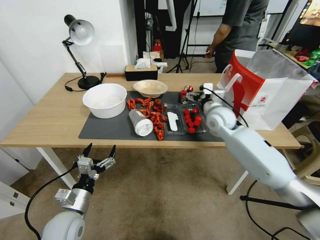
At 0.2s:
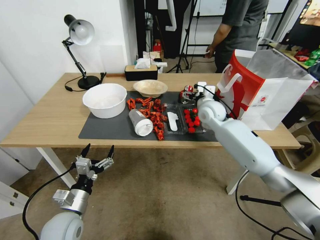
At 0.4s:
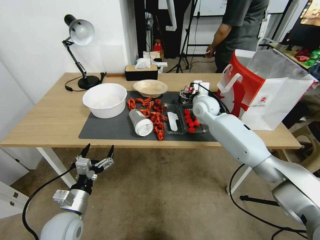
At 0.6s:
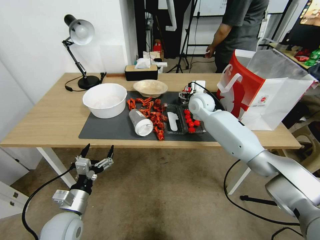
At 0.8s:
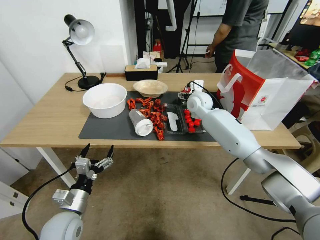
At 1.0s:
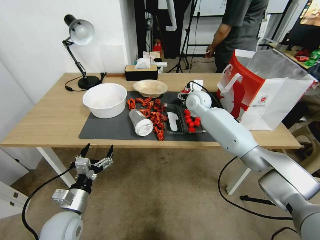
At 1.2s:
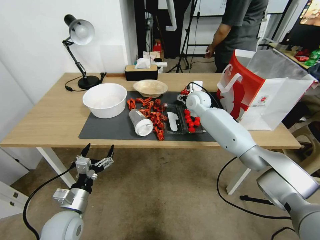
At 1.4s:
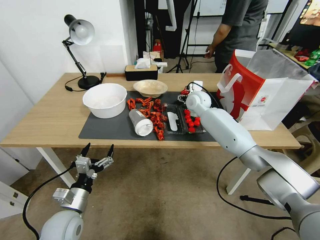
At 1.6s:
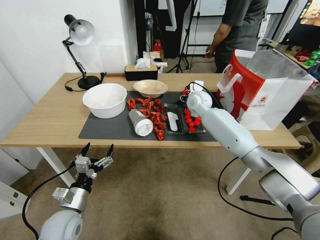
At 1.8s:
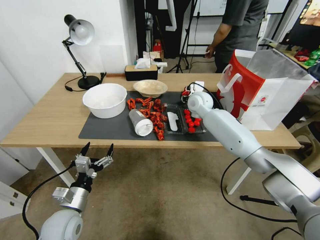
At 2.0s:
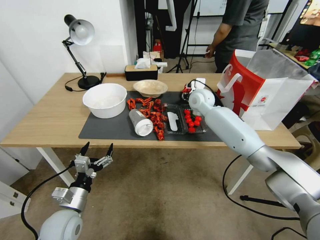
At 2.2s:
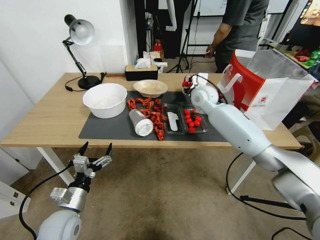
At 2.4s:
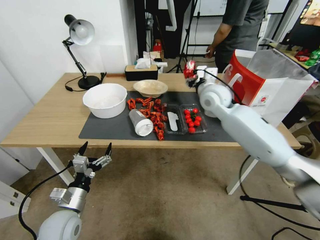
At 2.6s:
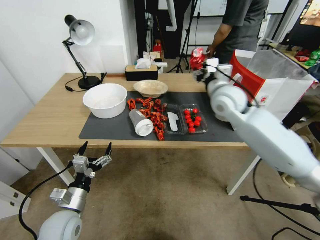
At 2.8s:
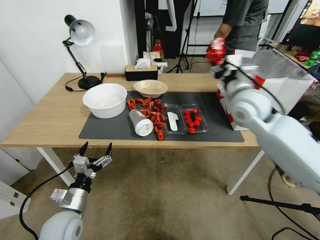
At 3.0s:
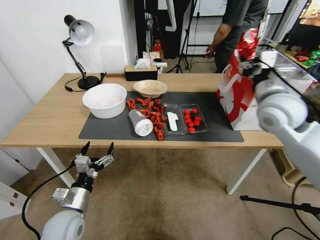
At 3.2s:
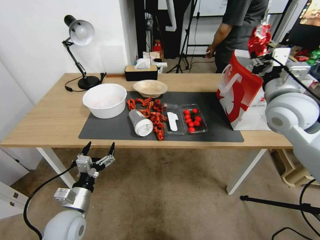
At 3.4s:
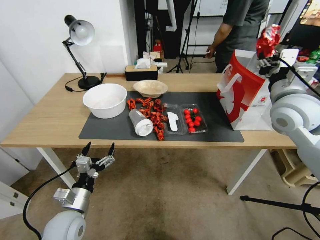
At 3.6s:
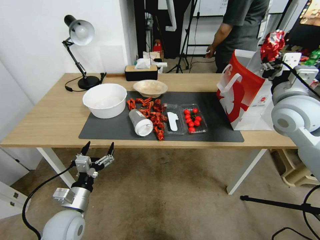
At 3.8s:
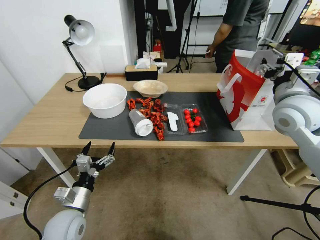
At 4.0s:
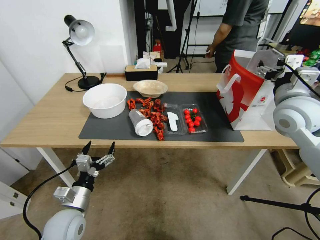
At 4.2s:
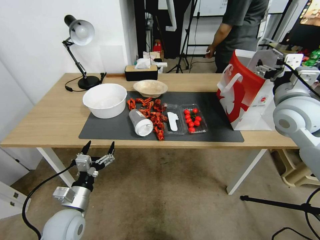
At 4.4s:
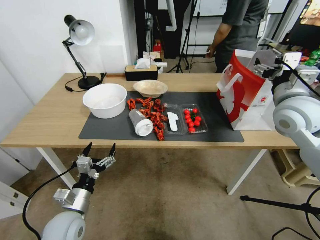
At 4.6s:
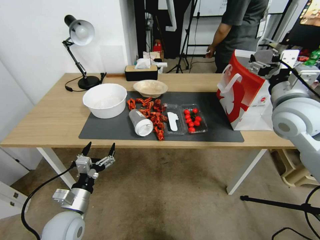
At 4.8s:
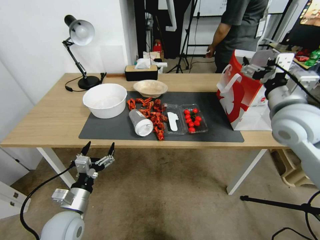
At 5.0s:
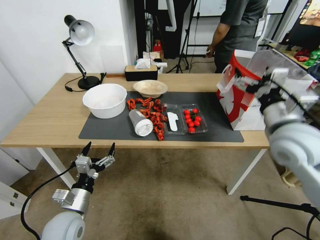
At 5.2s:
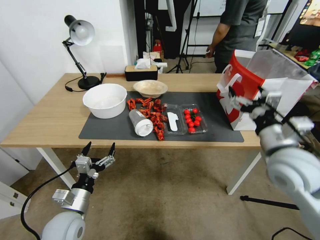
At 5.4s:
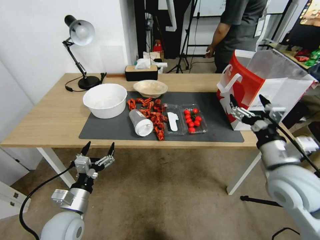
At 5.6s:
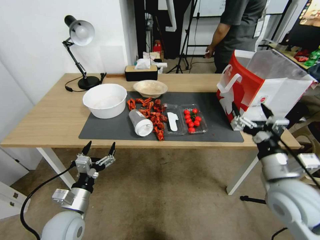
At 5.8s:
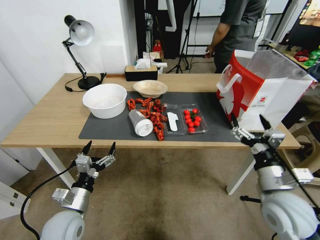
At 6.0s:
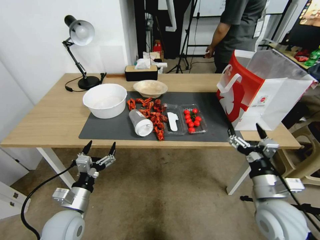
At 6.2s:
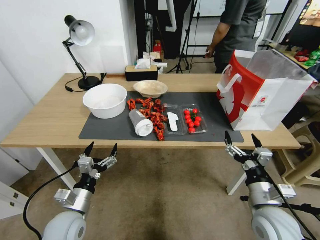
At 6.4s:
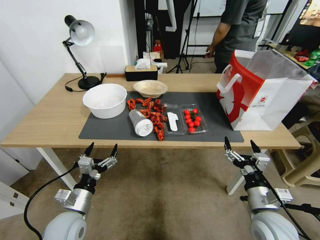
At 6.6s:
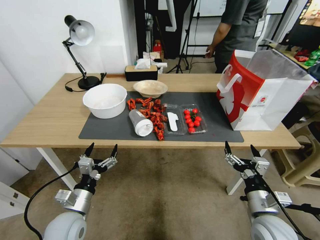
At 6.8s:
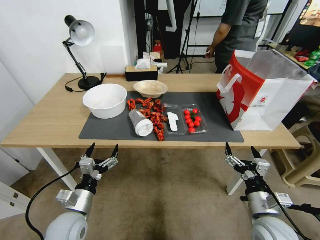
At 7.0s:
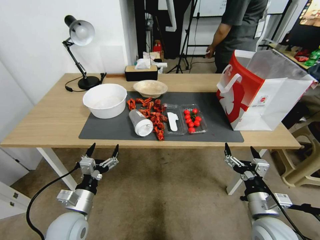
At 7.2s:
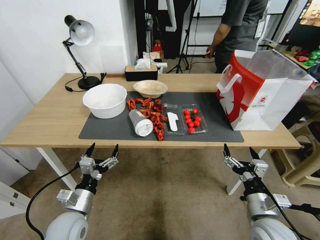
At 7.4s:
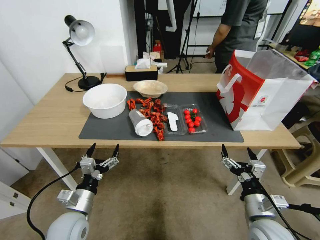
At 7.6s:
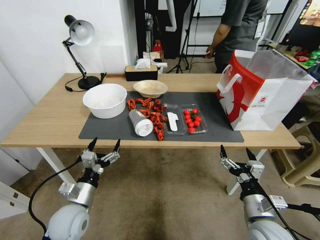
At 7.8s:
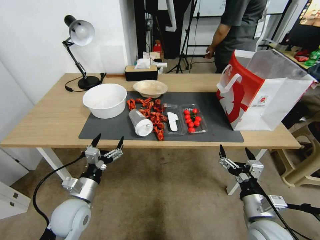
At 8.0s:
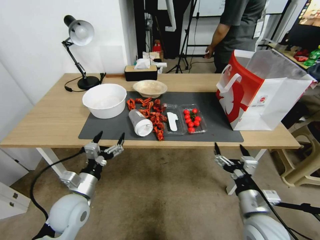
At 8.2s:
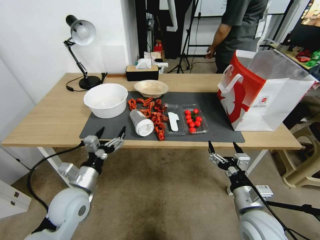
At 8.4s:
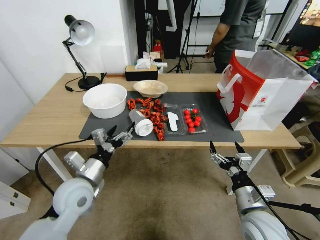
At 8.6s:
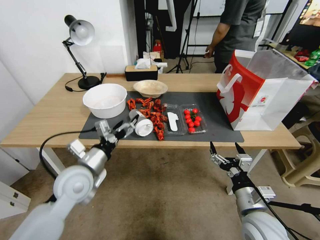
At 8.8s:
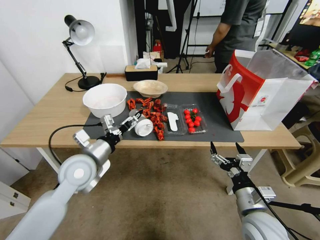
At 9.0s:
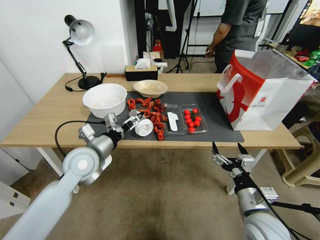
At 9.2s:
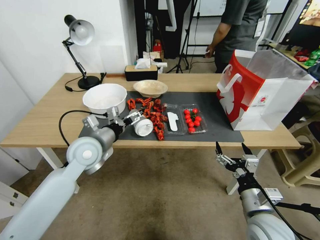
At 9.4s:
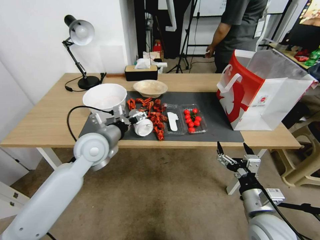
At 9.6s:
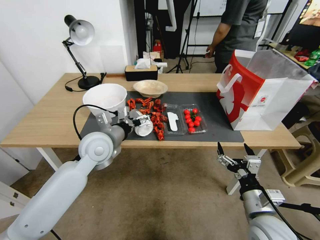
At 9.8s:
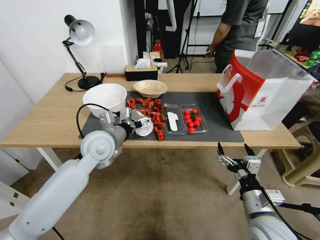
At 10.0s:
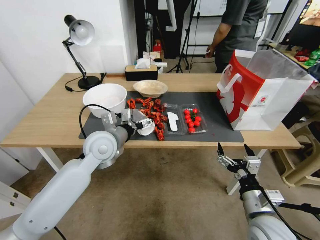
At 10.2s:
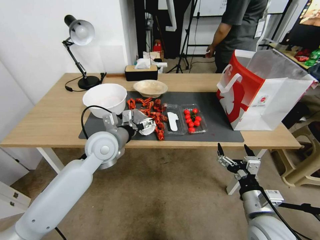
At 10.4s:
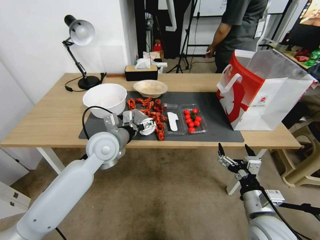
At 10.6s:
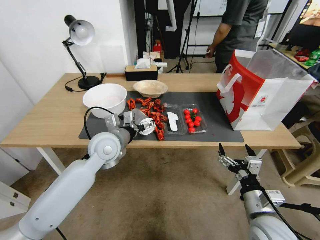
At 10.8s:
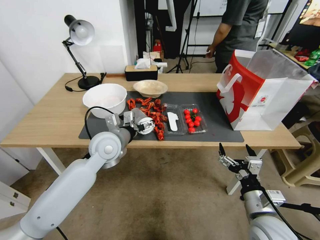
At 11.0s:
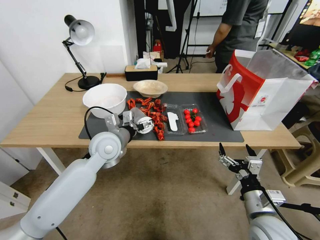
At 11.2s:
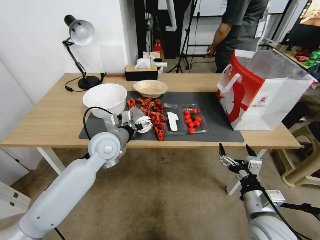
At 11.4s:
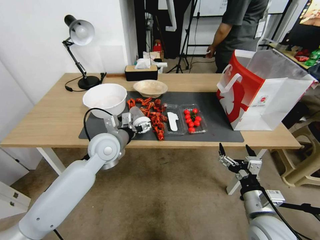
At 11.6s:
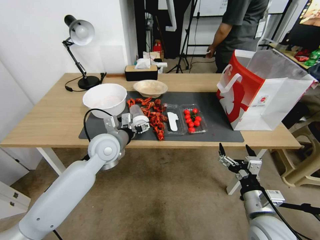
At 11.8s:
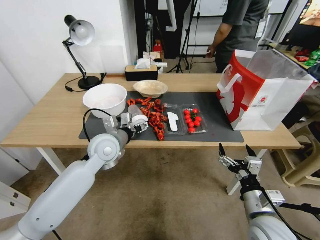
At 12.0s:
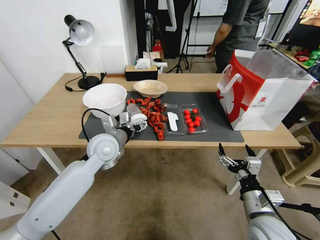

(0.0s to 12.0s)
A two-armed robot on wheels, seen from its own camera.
0.0s - 1.6s: The right gripper travels forward and to the left by about 10 cm.
1.6s - 3.0s: The right gripper heads backward, to the right and upward, covering about 25 cm.
3.0s - 4.4s: The right gripper ends up about 5 cm from where it was, and opens its fingers.
4.4s - 6.0s: The right gripper is displaced downward and backward by roughly 25 cm.
6.0s - 7.6s: The right gripper moves downward, approximately 5 cm.
7.6s - 9.0s: The left gripper is displaced upward and forward by some 20 cm.
9.0s - 10.4s: The left gripper heads to the right, covering approximately 5 cm.
10.4s - 12.0s: The grippers stay close to where they were, moving slightly.

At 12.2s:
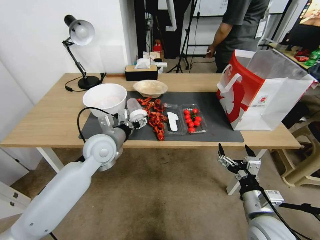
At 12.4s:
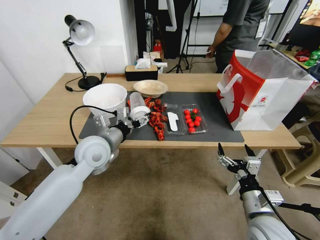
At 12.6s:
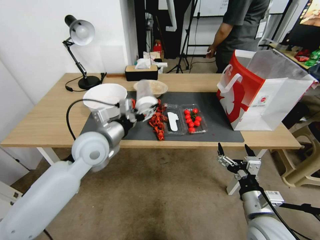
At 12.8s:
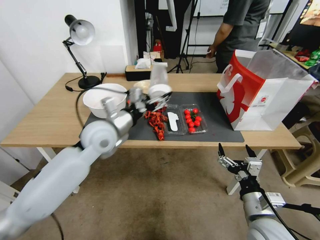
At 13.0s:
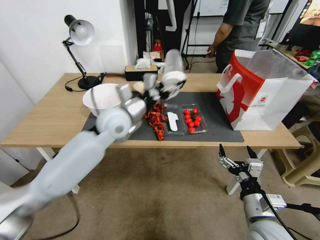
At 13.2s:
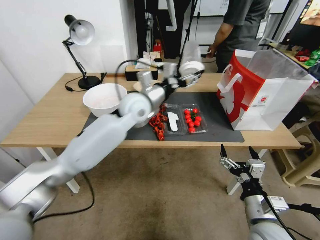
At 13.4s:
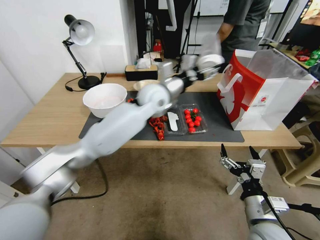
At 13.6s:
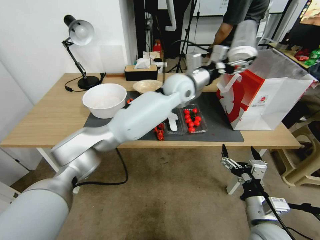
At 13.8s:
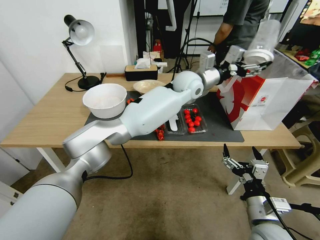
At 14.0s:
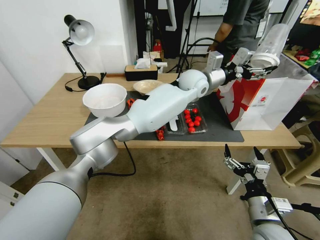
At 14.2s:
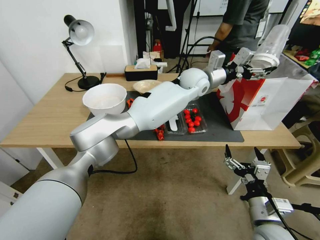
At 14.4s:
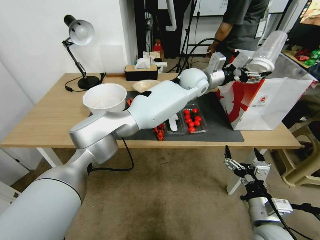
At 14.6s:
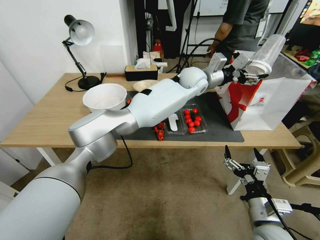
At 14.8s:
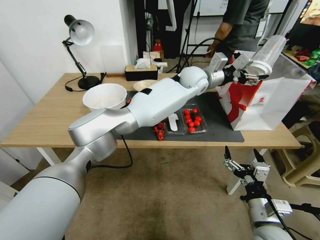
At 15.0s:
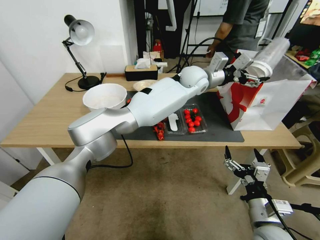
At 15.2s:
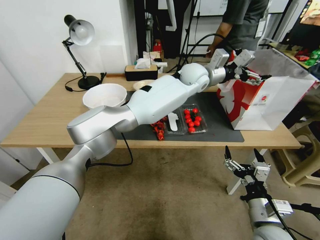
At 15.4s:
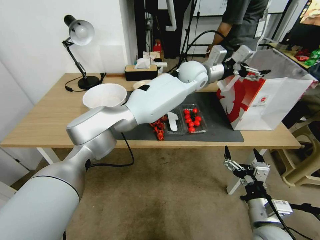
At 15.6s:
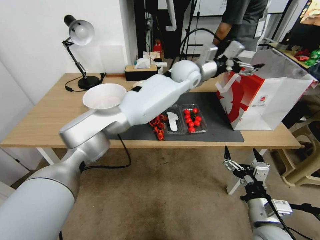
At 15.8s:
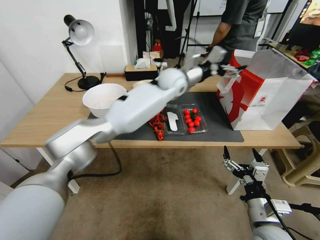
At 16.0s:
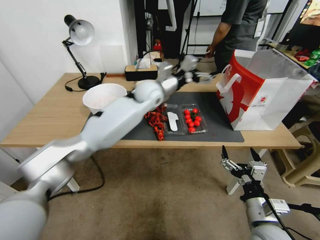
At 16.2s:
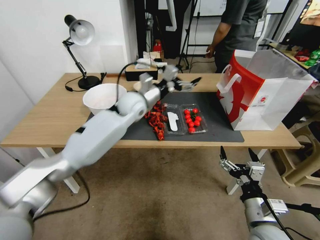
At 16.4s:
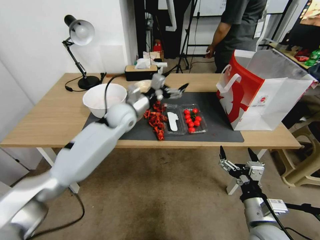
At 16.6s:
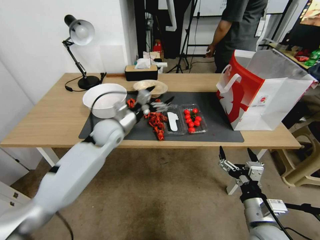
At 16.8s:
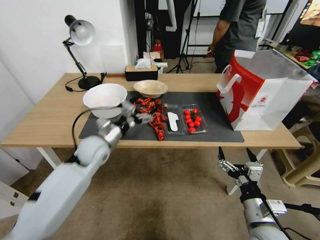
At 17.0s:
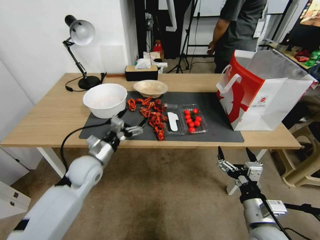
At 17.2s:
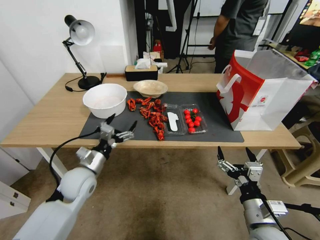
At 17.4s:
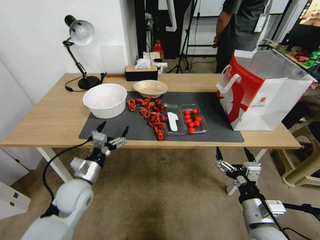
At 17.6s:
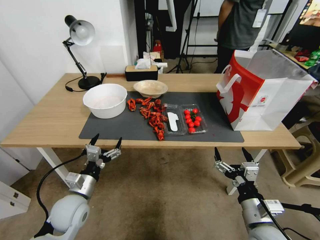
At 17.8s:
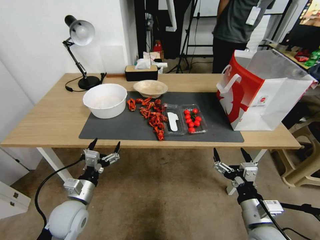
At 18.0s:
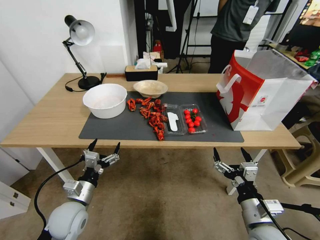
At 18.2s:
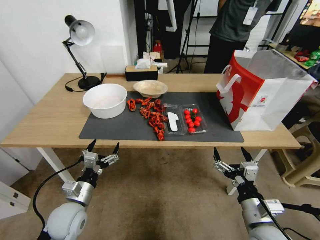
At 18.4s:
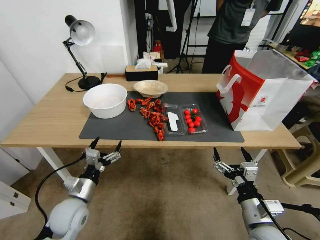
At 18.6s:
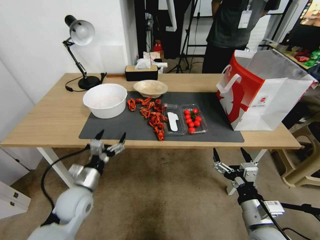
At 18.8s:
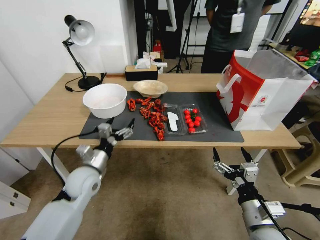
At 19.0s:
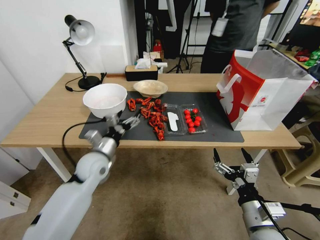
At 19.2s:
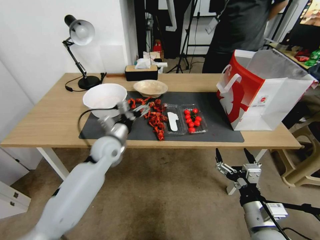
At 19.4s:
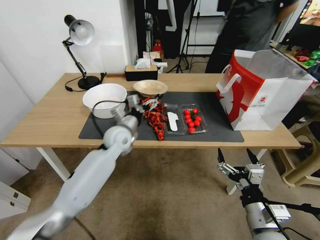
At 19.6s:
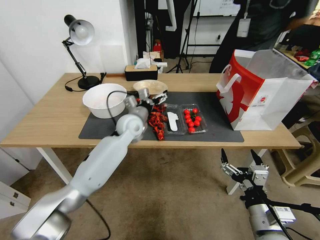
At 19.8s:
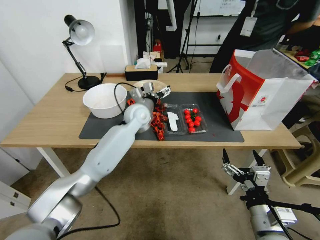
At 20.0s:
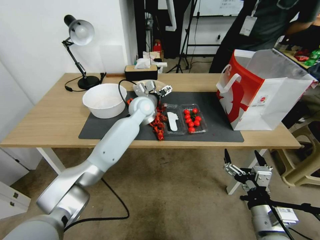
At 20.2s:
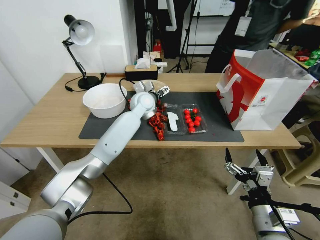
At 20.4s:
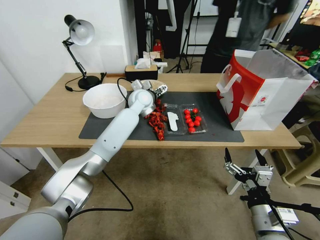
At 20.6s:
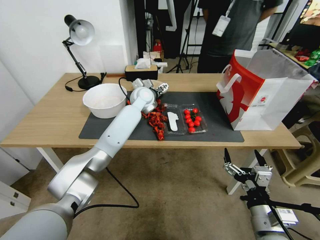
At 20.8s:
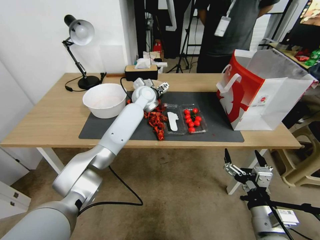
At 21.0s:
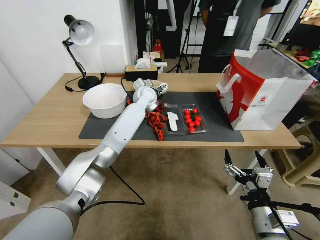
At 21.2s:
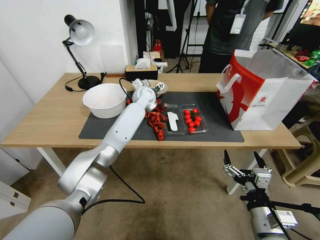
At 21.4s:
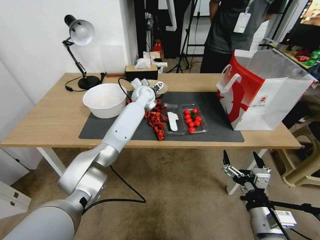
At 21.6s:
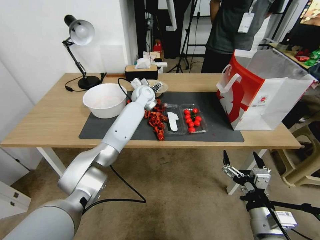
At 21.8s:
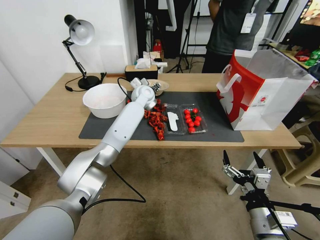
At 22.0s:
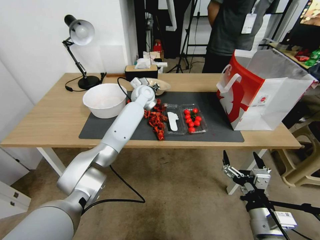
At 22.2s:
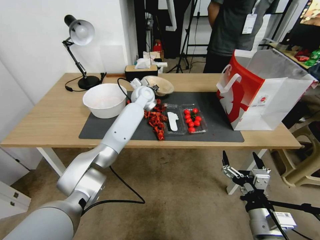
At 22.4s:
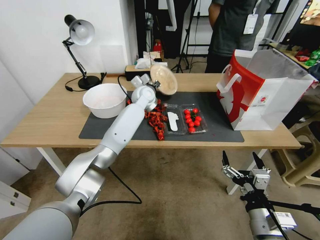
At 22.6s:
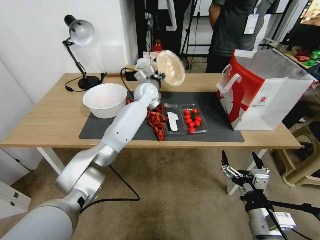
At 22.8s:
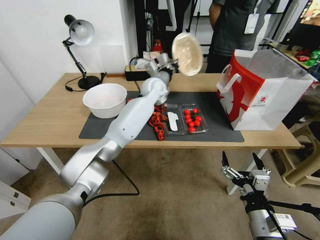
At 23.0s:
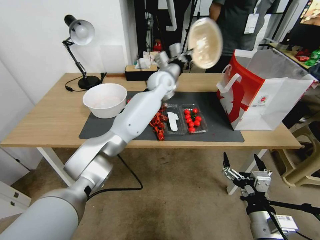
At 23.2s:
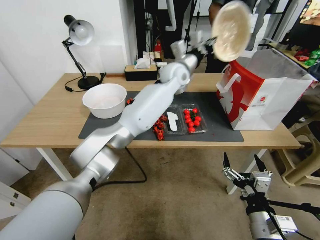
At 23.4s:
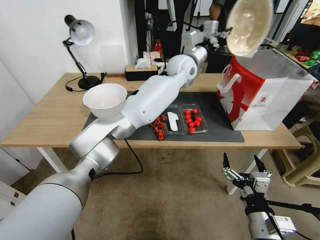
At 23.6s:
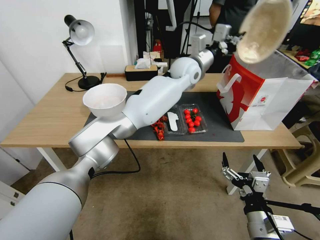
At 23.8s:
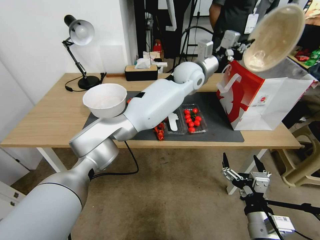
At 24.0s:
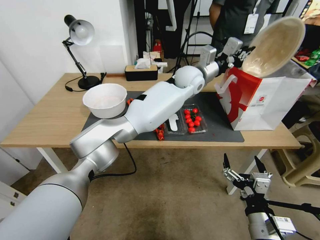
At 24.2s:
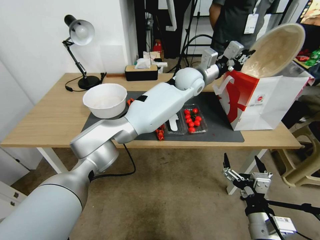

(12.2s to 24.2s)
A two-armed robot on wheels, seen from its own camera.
12.2s - 13.8s: The left gripper moves to the right, forward and upward, approximately 35 cm.
13.8s - 15.2s: The grippers move only a little.
15.2s - 16.6s: The left gripper moves to the left, downward and backward, about 35 cm.
16.6s - 18.2s: The left gripper travels backward, downward and to the left by some 25 cm.
18.2s - 19.8s: The left gripper shifts about 40 cm forward, to the right and upward.
19.8s - 21.2s: The left gripper moves forward, roughly 10 cm.
21.2s - 22.6s: The left gripper closes its fingers.
22.6s - 24.2s: The left gripper travels to the right and upward by some 15 cm.
